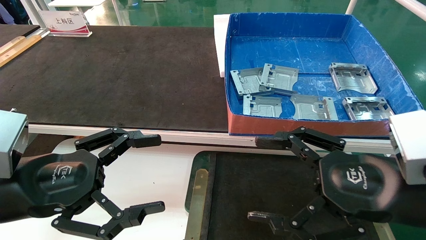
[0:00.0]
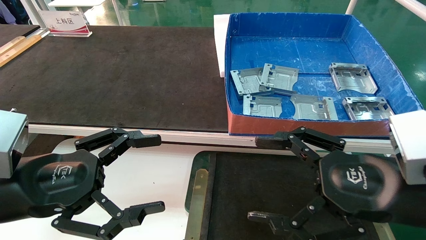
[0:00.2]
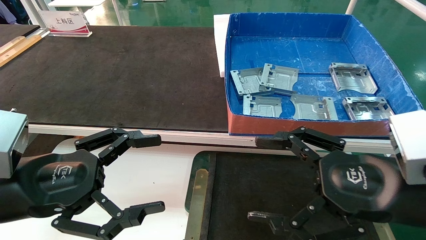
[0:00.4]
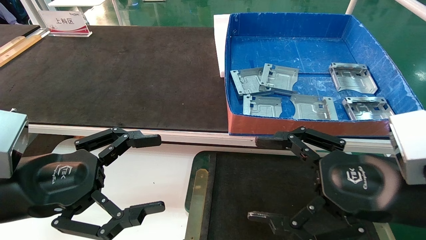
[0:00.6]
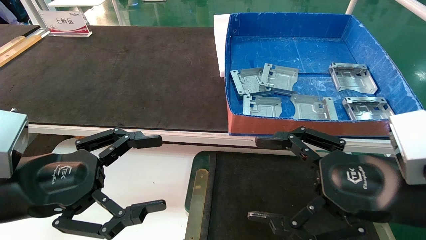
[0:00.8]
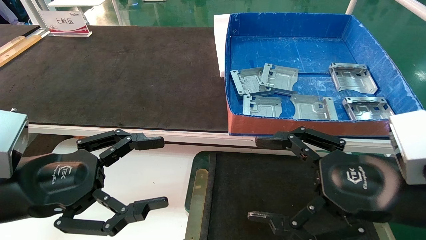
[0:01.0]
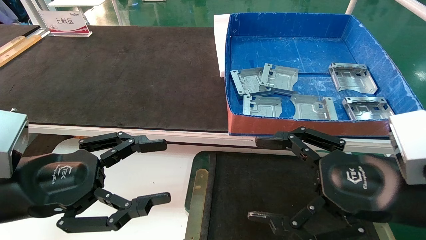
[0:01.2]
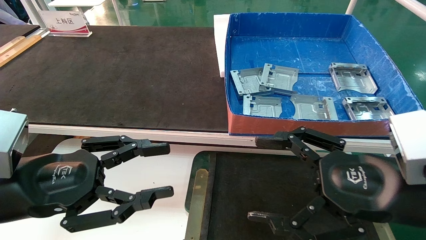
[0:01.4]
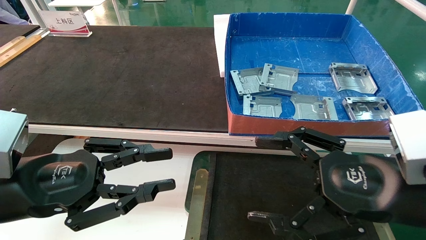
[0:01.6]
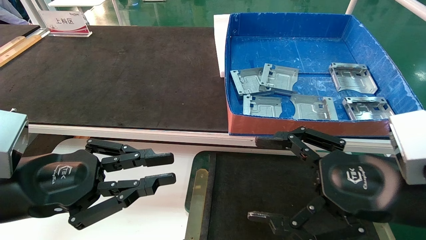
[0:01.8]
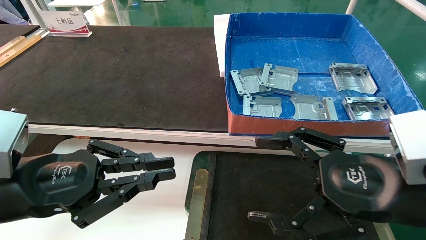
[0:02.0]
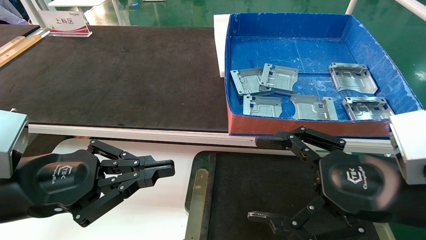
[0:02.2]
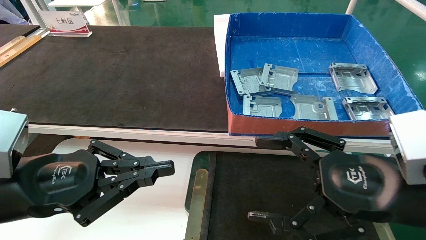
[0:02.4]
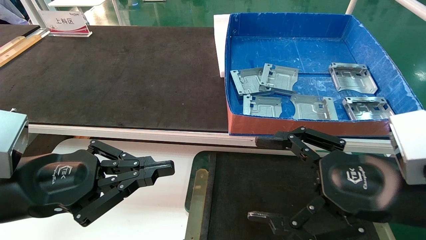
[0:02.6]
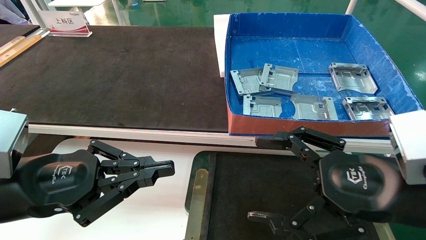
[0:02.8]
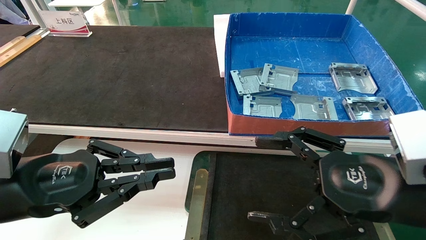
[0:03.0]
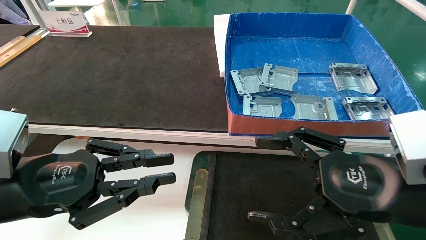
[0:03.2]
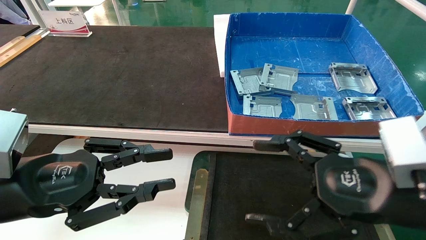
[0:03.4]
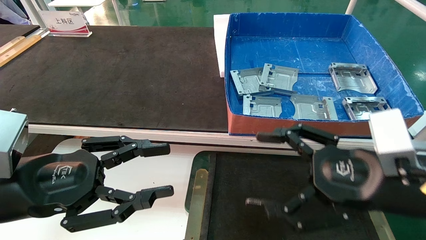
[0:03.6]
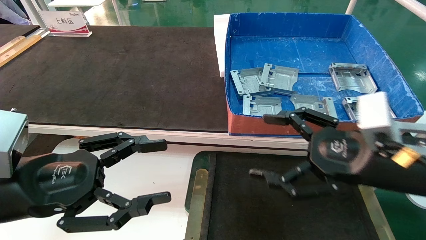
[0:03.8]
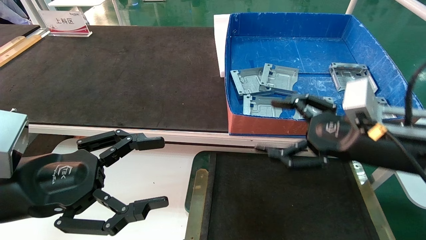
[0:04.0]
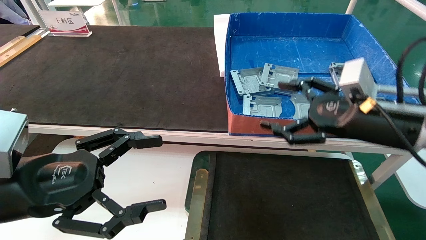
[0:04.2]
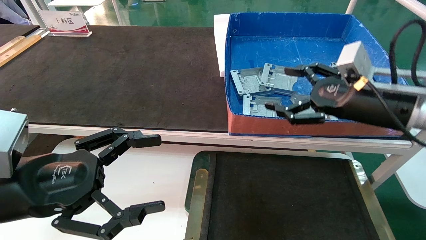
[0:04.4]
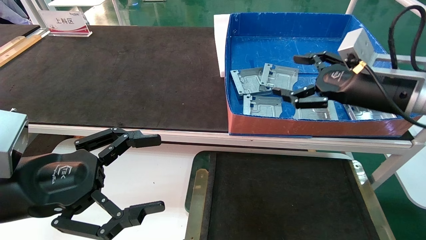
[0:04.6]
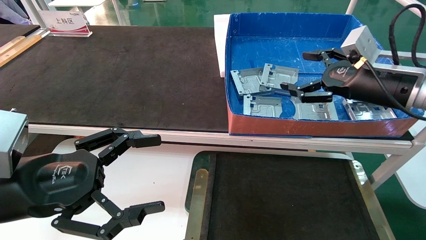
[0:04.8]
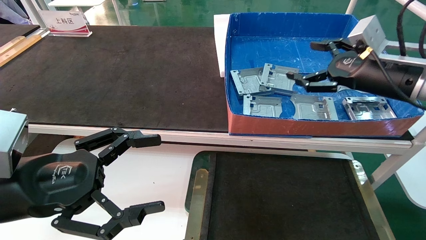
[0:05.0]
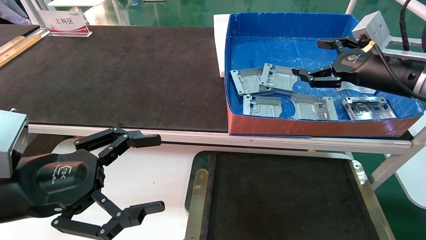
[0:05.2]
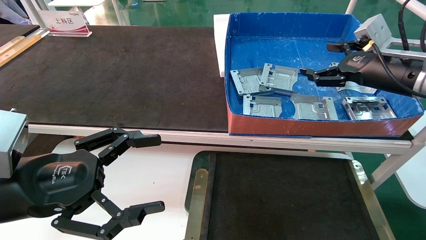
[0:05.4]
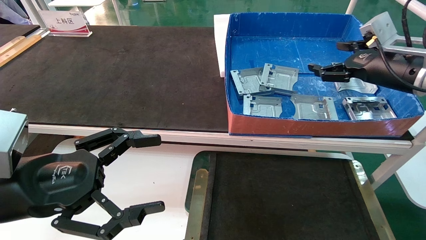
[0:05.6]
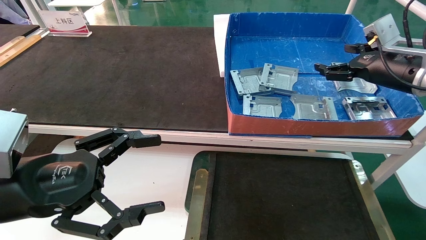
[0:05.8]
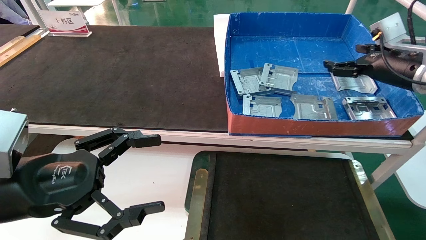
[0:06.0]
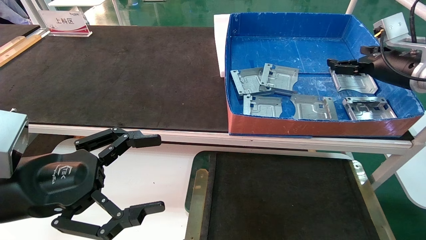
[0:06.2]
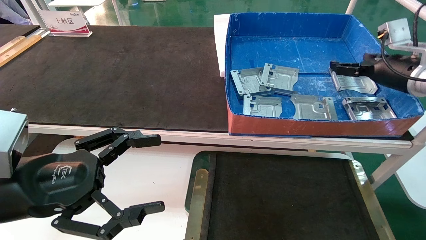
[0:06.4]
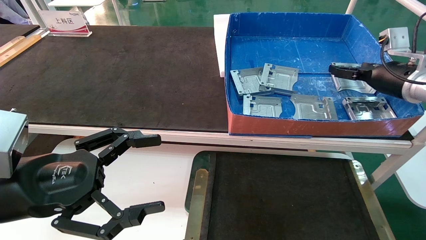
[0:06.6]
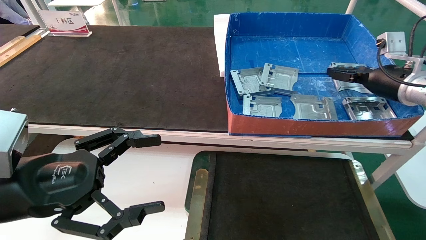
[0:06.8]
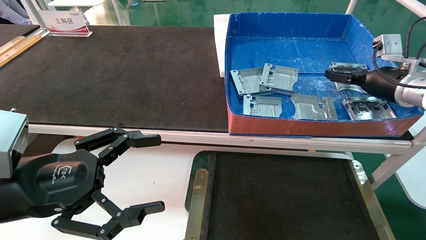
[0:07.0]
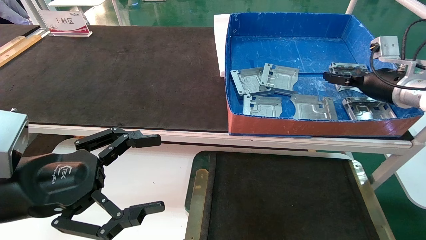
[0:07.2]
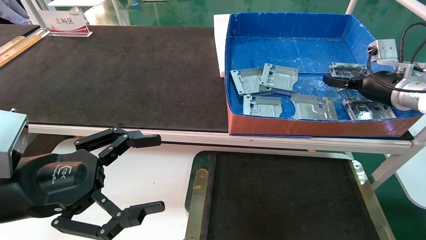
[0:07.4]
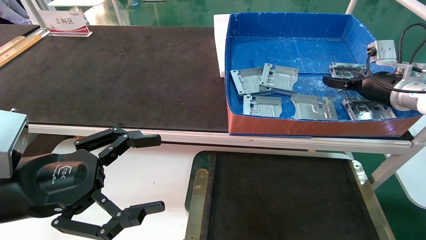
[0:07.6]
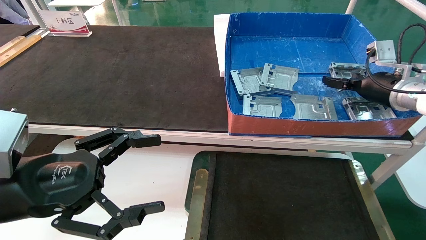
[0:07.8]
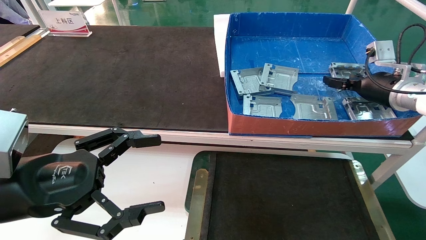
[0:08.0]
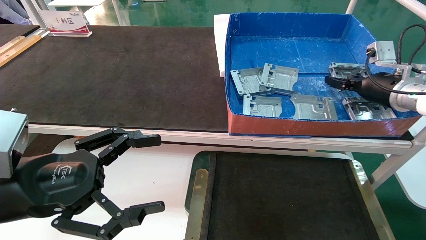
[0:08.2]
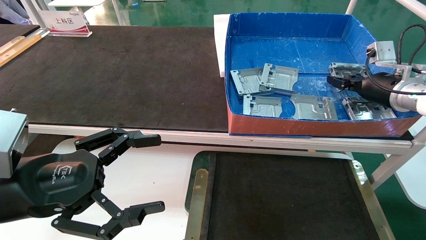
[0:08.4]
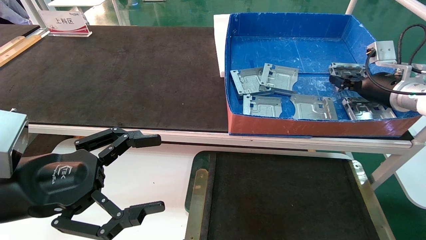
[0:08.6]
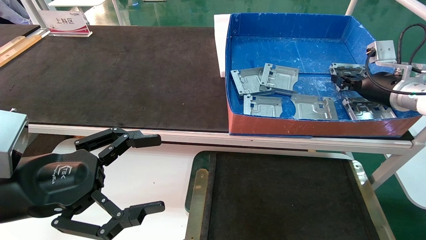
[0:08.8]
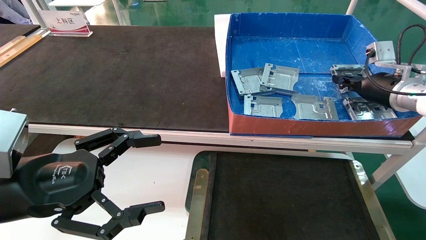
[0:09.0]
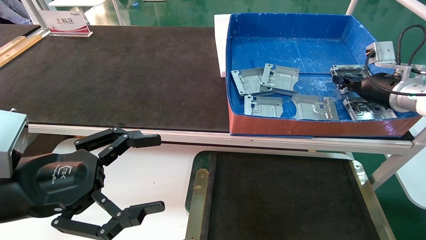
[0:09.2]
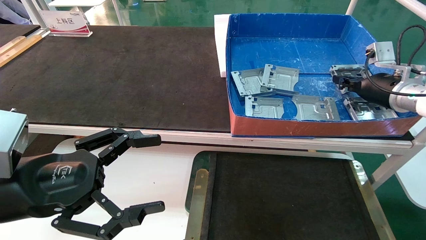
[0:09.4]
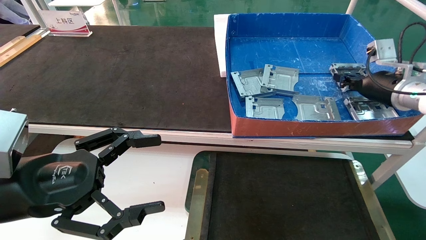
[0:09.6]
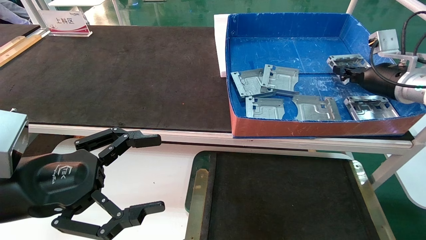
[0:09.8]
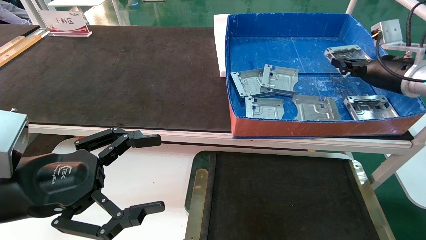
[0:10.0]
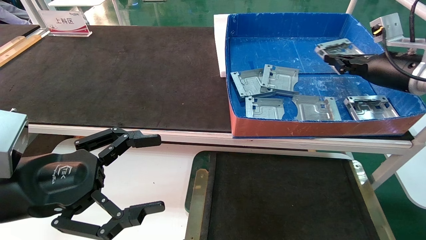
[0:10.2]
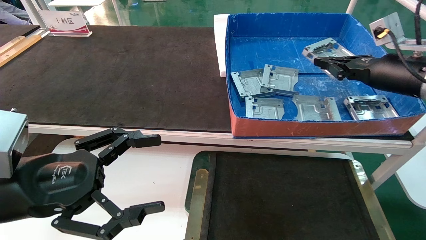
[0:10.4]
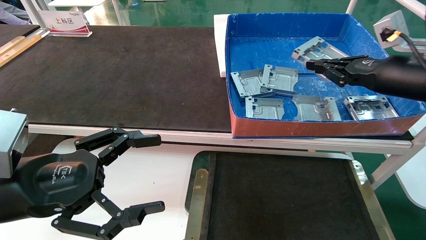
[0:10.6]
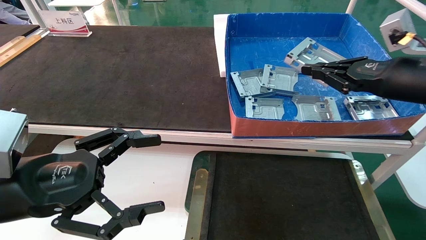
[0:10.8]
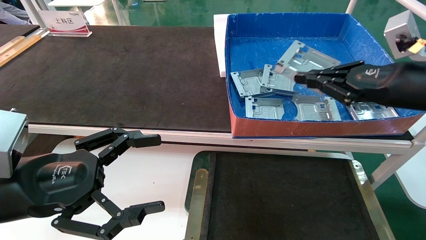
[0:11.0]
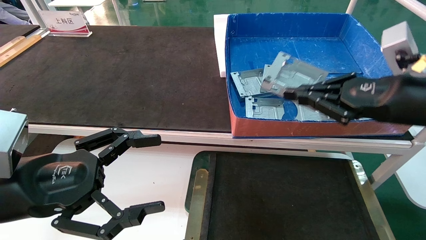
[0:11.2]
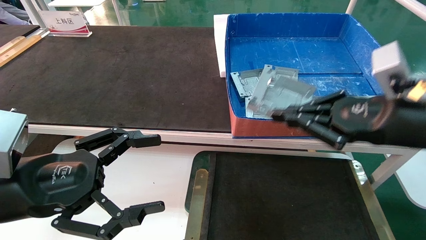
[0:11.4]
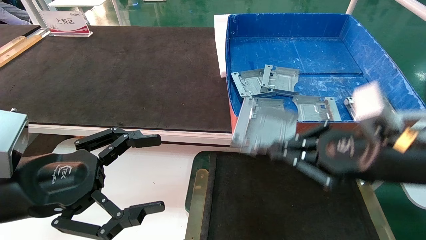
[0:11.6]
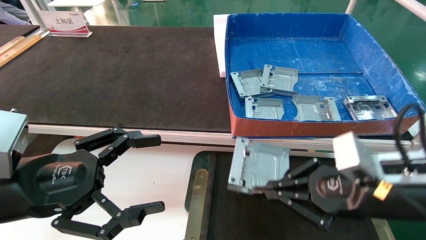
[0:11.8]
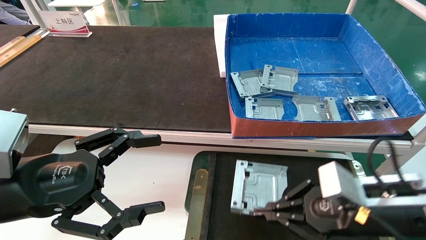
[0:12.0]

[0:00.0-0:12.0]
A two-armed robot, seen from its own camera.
Task of the whole recording: pick up parts and place them into a black container.
Step, 0:03.8 to 0:09.4: Pick up the hard drive bracket from the feeding area.
0:00.0 to 0:01.6: The left gripper closes its fingers.
0:01.6 to 0:03.0: The left gripper closes.
0:03.0 to 0:04.4: The left gripper opens its fingers. Meanwhile the right gripper moves forward, approximately 15 cm.
0:04.4 to 0:06.0: The right gripper moves to the right and forward, approximately 15 cm.
0:06.0 to 0:07.6: The right gripper changes place by approximately 5 cm.
0:07.6 to 0:09.0: The right gripper closes its fingers.
0:09.0 to 0:10.4: The right gripper goes some 5 cm backward.
0:10.4 to 0:12.0: The right gripper goes some 25 cm downward, backward and to the left.

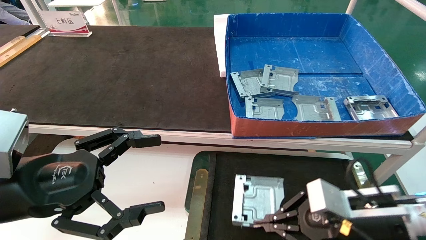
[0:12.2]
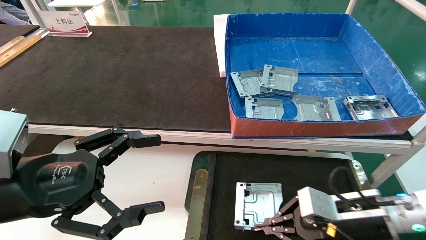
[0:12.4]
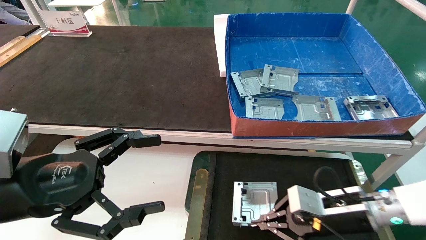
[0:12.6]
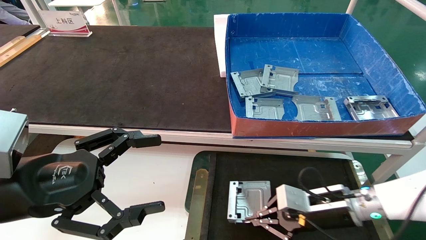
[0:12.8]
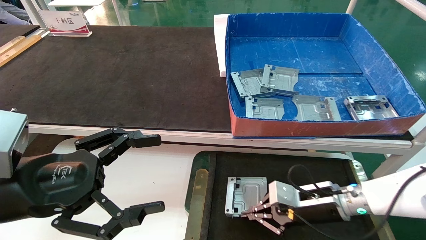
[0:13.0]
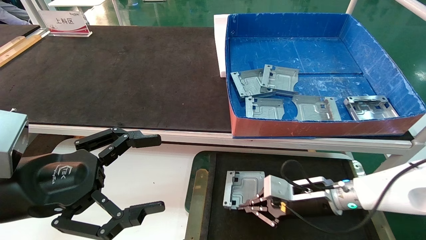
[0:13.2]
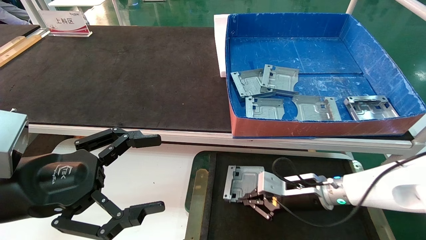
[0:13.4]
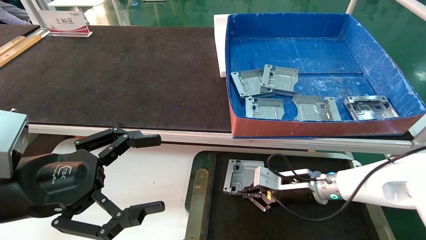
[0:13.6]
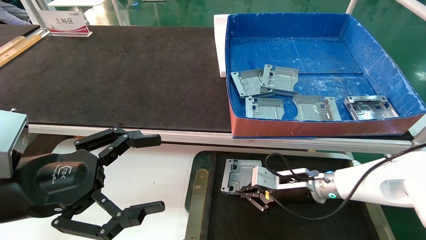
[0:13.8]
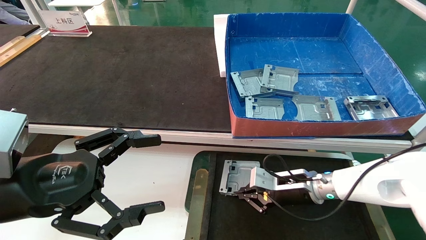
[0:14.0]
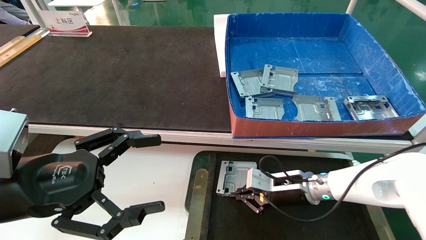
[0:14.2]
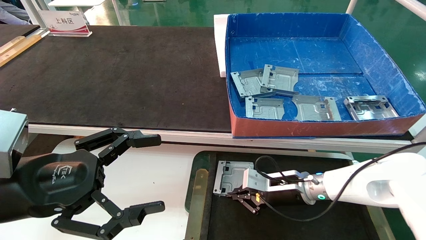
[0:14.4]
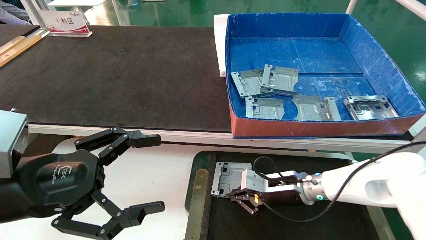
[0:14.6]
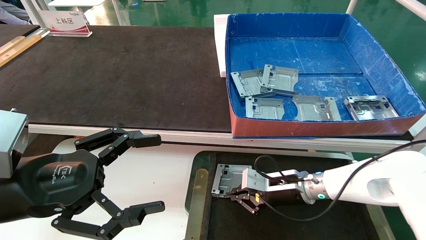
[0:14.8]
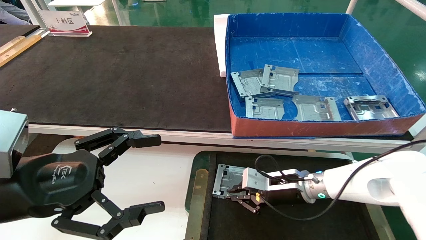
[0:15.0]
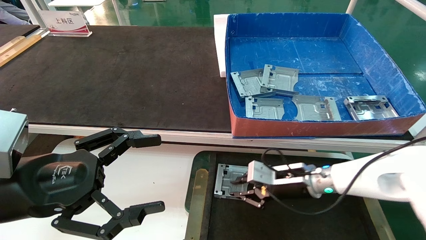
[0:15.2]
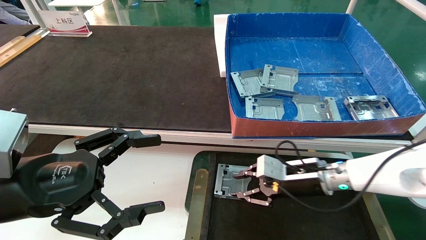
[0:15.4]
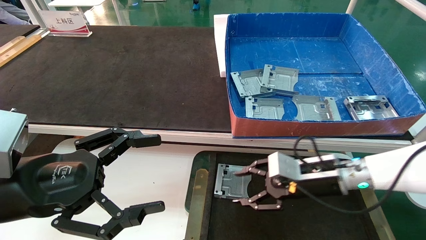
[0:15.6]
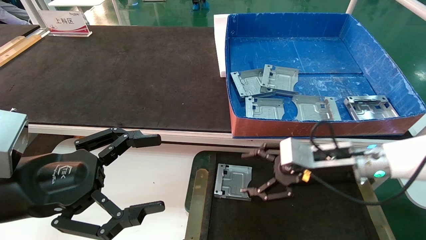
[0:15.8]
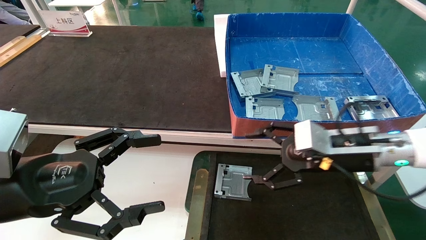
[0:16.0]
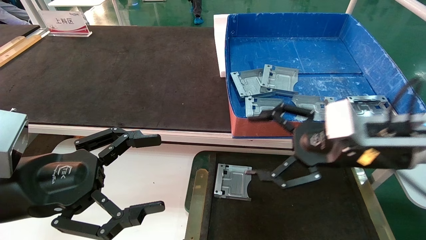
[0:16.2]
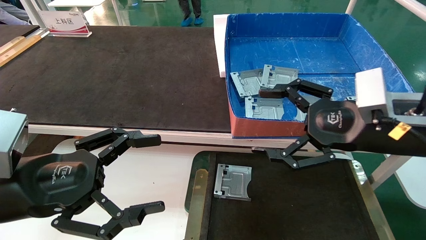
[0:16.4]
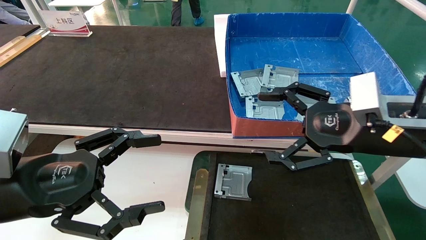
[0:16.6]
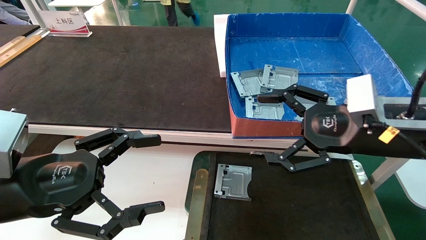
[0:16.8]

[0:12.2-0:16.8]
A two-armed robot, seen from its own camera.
Task of the whole recording: pick up parts and place them into a black container.
Step, 0:12.2 to 0:15.4: Place the hard drive bracket into the box.
0:12.2 to 0:13.8: The right gripper shifts approximately 15 cm forward, downward and to the left.
0:13.8 to 0:15.2: There are only small adjustments of the grippers.
0:15.2 to 0:16.8: The right gripper shifts about 20 cm upward and backward, and opens its fingers.
